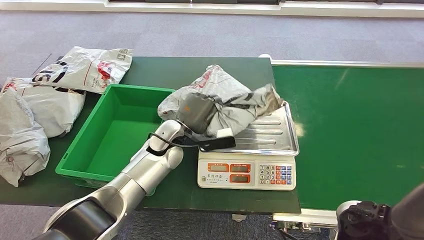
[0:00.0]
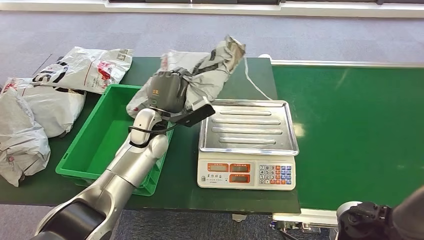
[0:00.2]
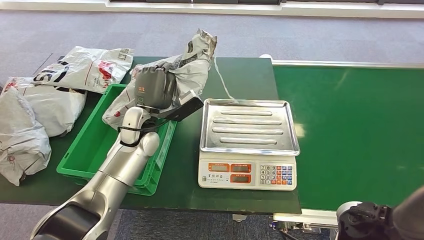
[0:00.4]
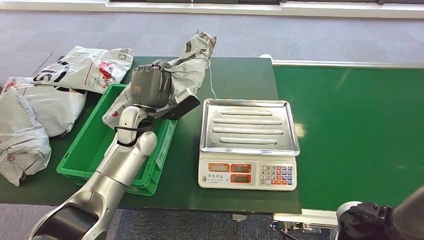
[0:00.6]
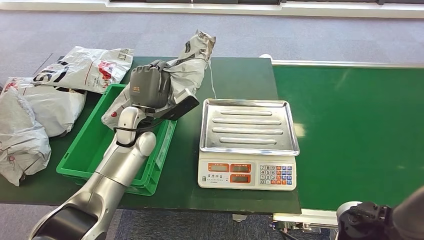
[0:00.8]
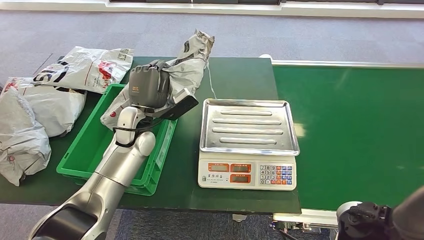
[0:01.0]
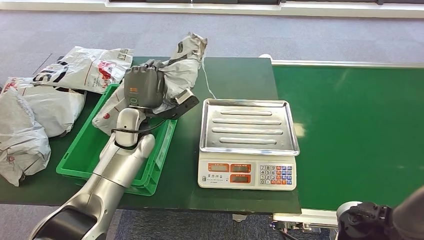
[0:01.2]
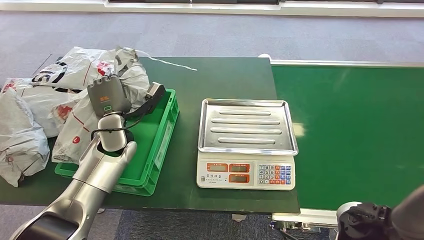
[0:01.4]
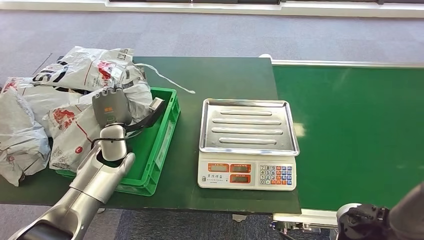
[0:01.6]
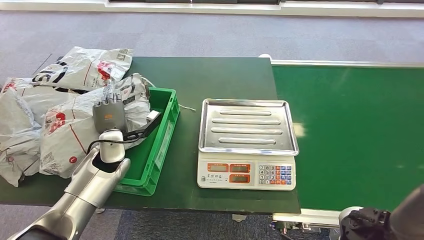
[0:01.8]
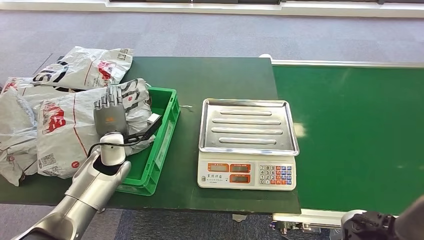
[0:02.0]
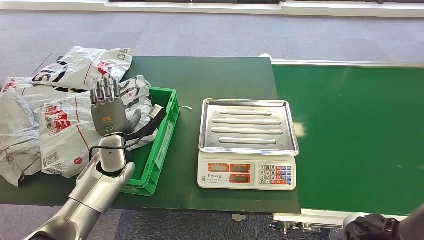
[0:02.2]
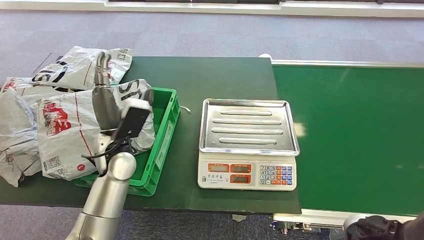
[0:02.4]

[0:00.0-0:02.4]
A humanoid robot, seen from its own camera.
Step, 0:00.0 to 0:00.6: Pick up the package from the inbound machine.
Step, 0:00.8 to 0:02.4: Place the package into the parcel locker.
0:00.0 to 0:01.2: The left hand is displaced to the left by some 10 cm.
0:01.2 to 0:02.4: The left hand travels backward by some 5 cm.

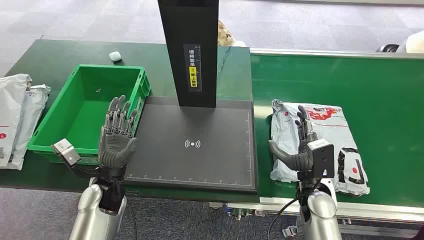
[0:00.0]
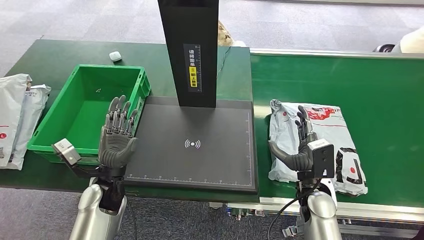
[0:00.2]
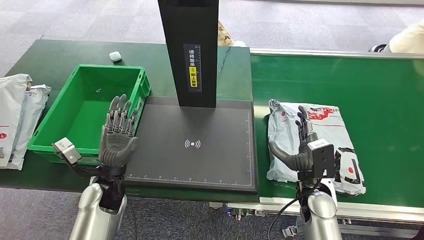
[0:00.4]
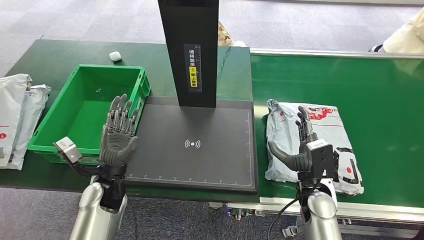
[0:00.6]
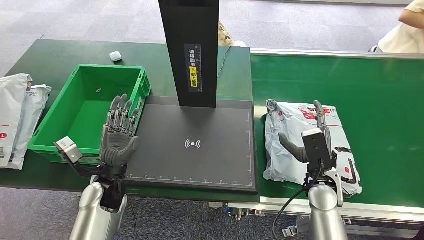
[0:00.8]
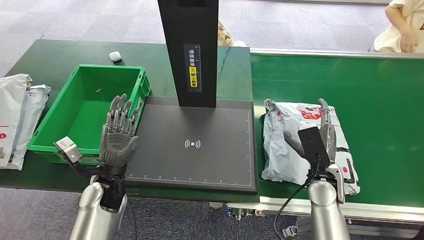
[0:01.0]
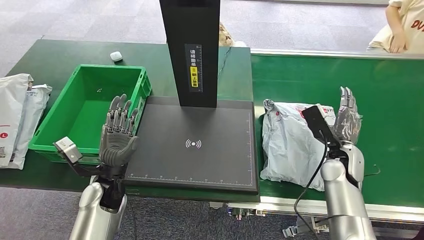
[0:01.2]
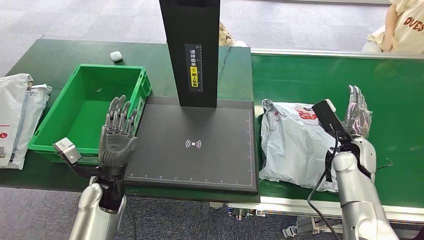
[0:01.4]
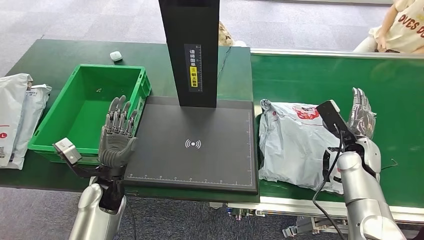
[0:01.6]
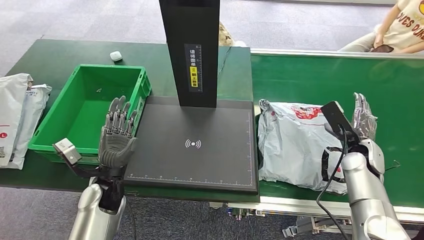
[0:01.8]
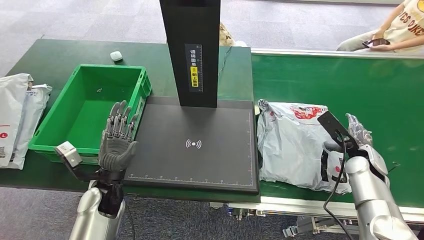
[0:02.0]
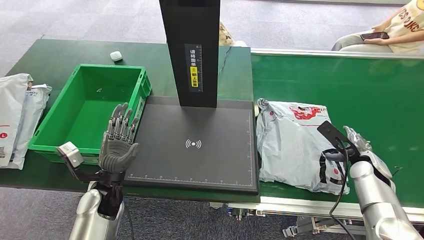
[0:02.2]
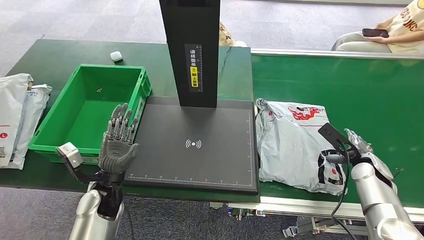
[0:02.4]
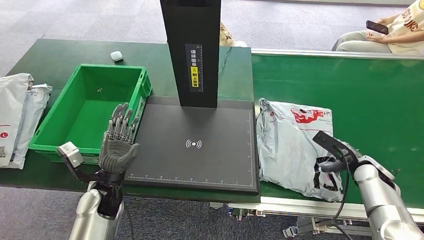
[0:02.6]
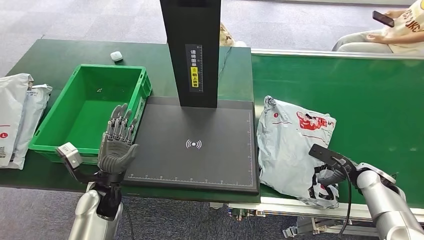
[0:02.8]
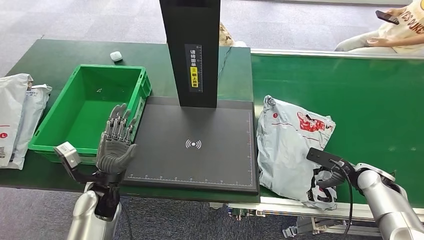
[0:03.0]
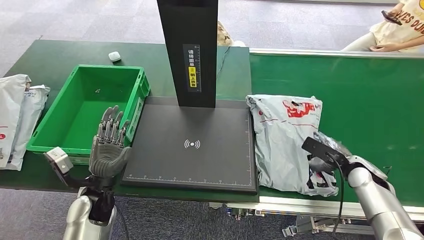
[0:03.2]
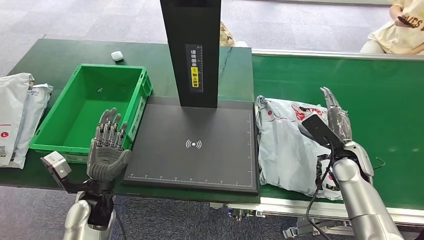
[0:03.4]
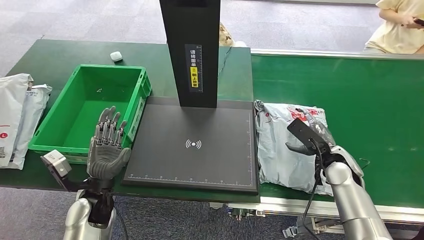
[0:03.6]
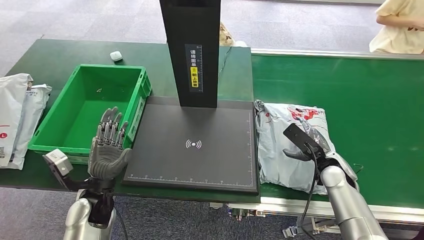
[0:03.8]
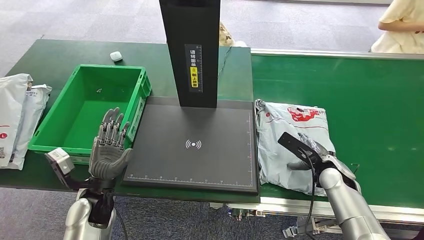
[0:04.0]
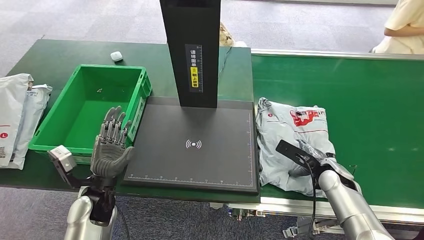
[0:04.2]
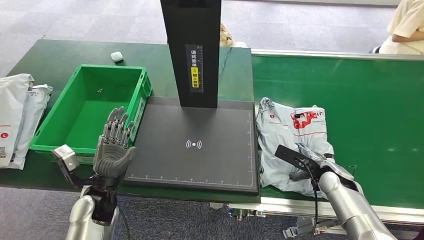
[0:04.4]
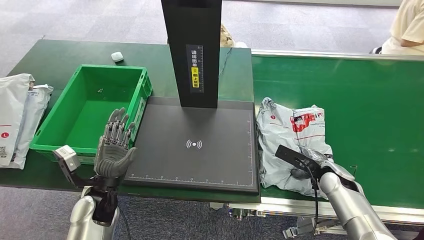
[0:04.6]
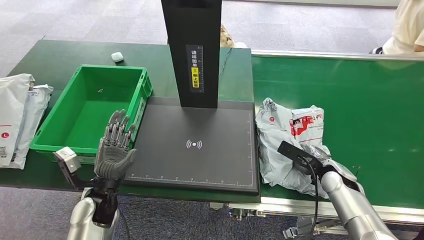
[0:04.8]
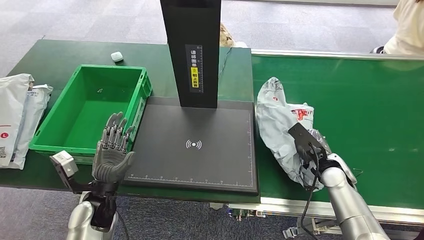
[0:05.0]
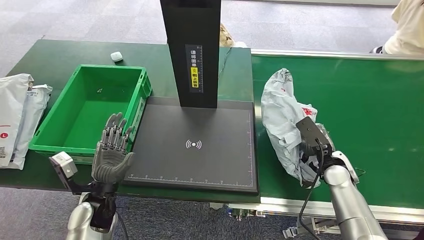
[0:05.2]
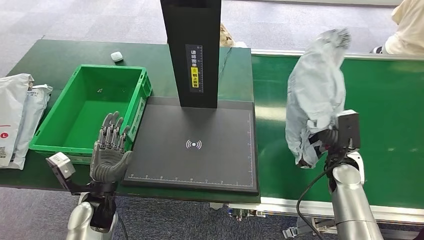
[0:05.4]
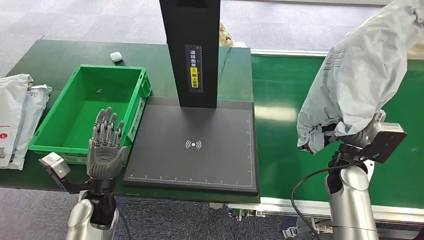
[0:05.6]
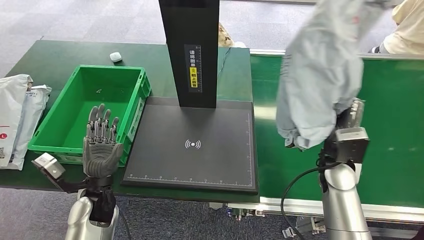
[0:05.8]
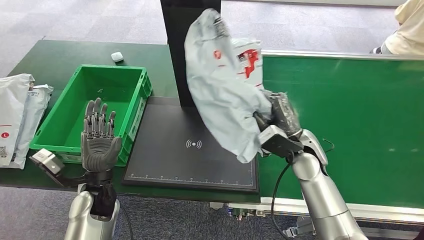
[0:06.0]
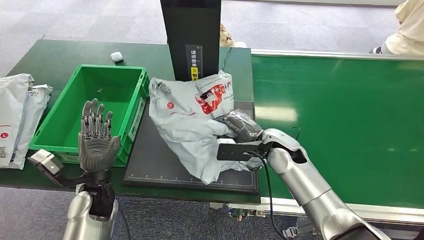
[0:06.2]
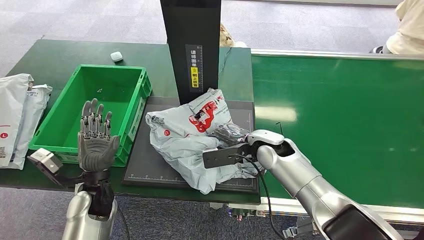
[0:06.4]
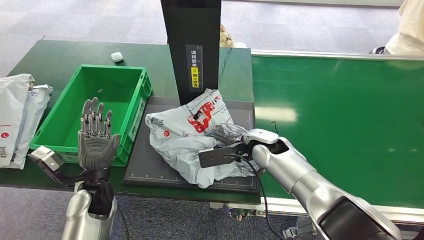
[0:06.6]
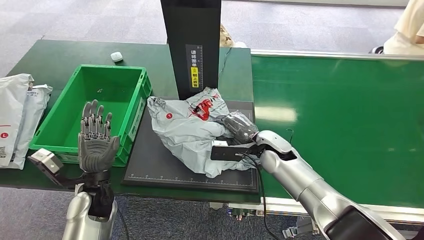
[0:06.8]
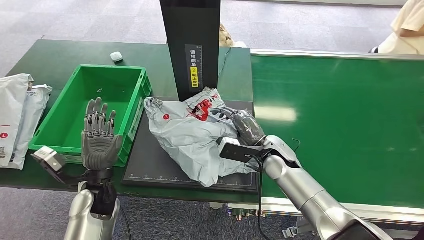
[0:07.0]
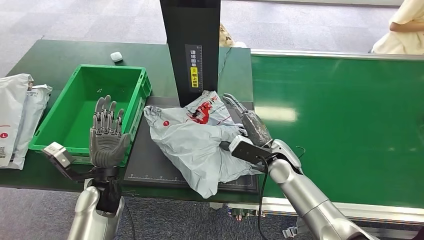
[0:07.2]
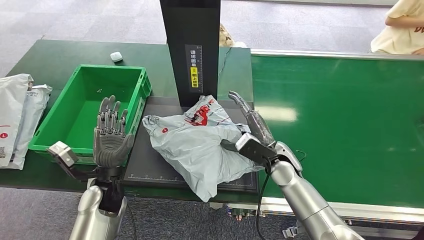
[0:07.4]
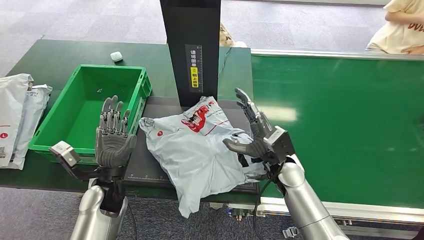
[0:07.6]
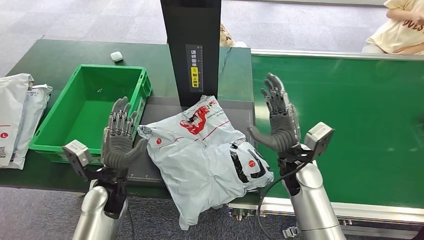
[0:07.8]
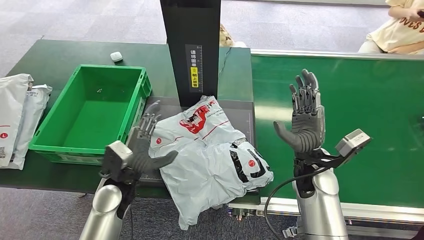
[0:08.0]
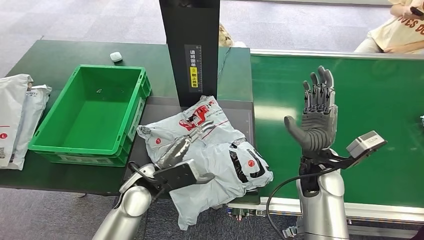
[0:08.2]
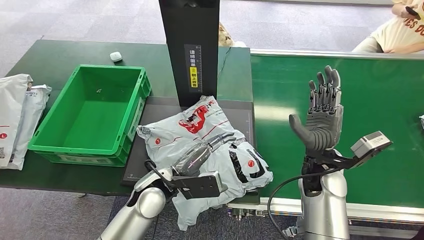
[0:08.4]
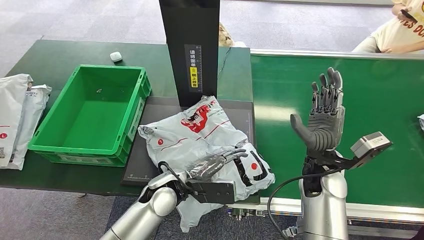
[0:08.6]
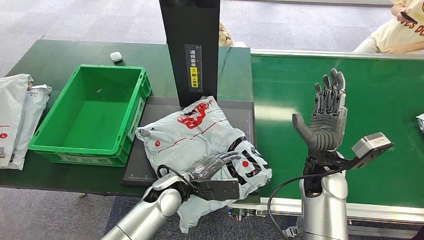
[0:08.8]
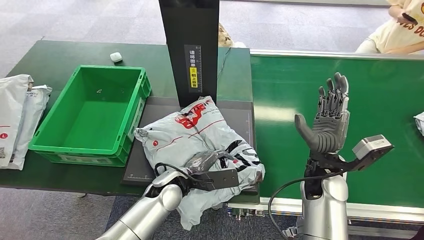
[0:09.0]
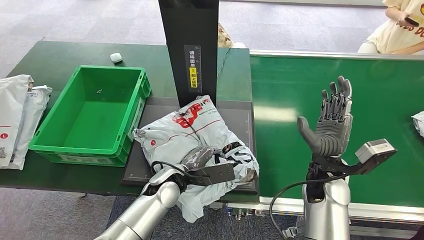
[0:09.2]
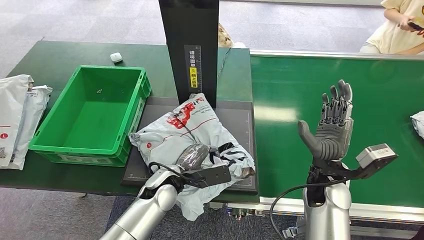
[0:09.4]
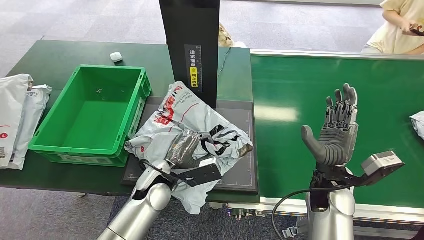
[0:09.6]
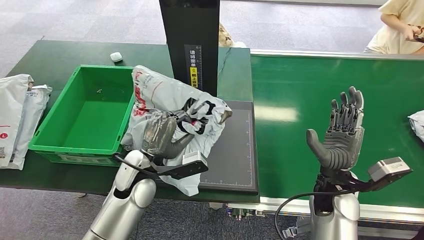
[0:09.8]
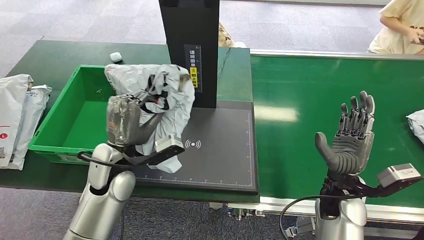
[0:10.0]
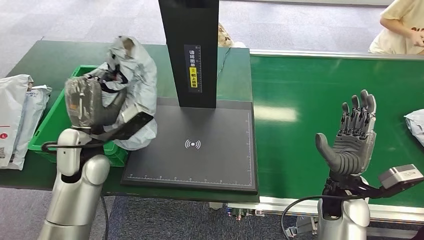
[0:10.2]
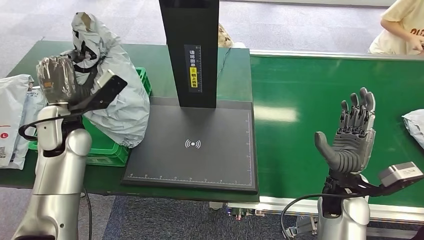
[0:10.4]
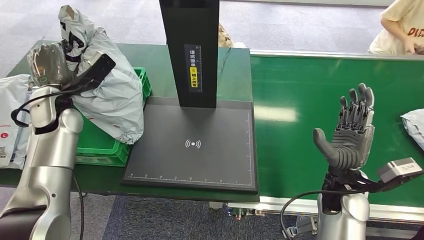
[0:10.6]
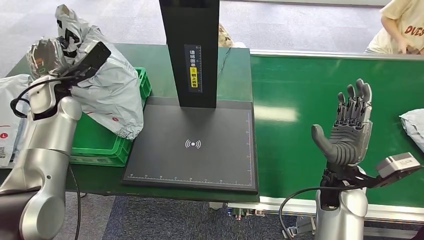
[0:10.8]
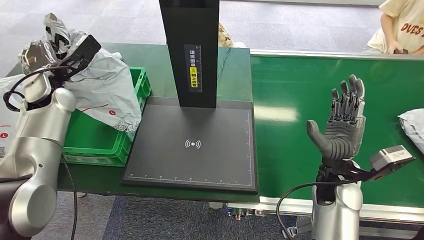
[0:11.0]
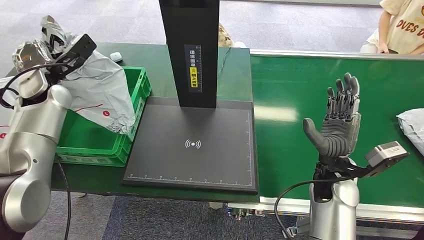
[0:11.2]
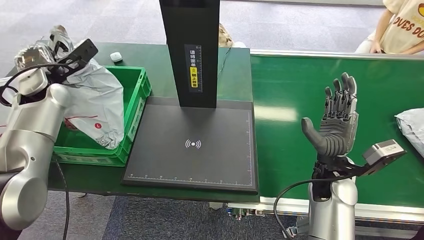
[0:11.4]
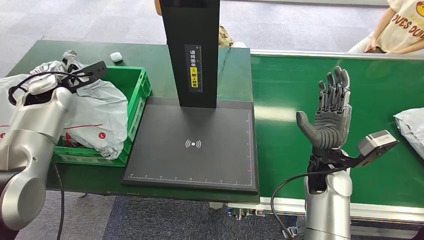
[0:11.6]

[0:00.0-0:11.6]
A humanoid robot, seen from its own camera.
Step, 0:00.0 to 0:05.6: Pick up the package from the conveyor belt.
Step, 0:05.8 to 0:07.8: Place the package onto the inbound machine.
Step, 0:08.0 to 0:10.2: Pick up the package from the inbound machine.
0:01.4 to 0:02.8: The right hand travels to the right, downward and backward by about 15 cm.
0:02.8 to 0:04.4: The right hand goes some 10 cm to the left.

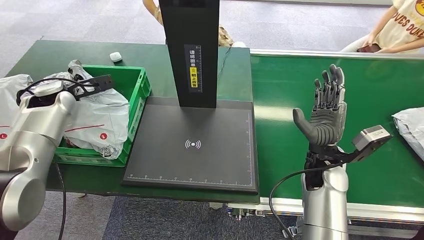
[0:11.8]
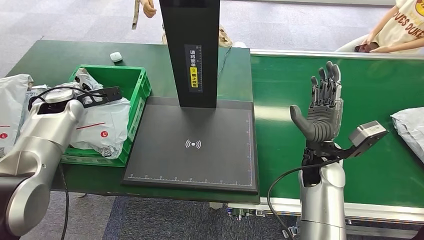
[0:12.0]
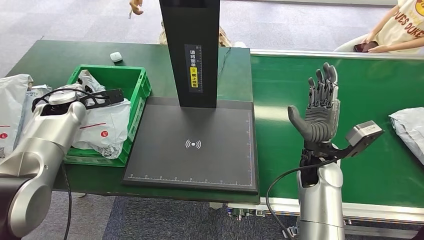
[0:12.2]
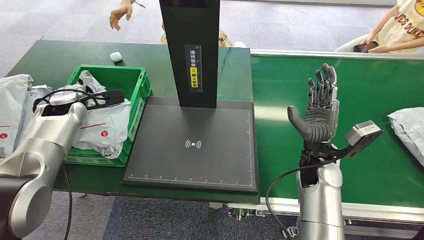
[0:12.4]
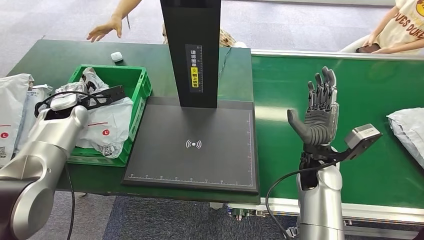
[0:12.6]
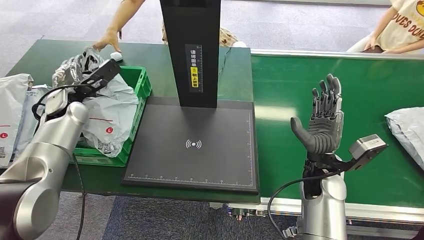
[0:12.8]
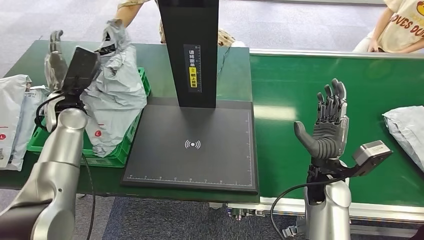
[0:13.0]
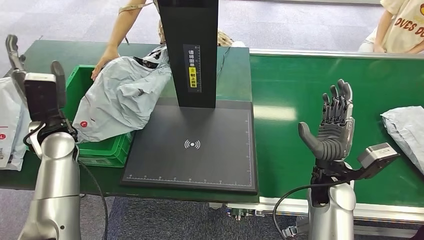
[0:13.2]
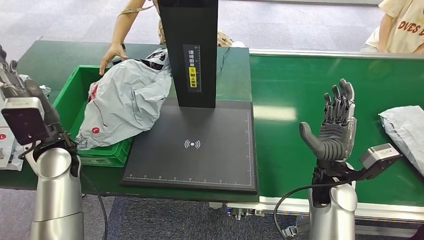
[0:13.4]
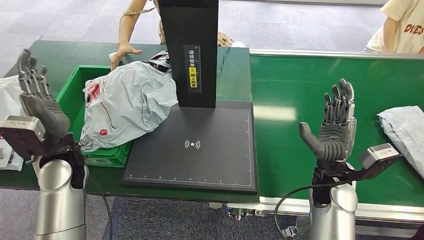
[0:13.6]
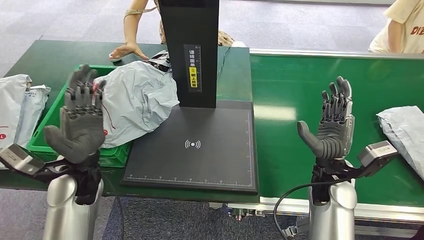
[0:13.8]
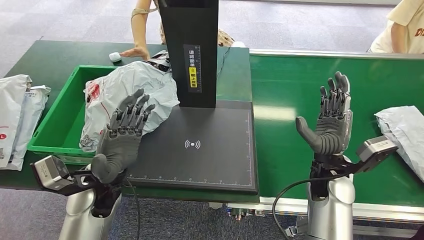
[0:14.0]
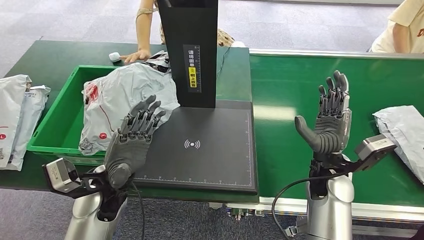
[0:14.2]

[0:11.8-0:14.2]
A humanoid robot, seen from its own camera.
Step, 0:11.8 to 0:14.2: Place the package into the parcel locker.
